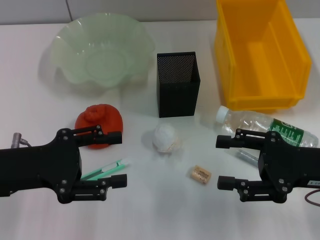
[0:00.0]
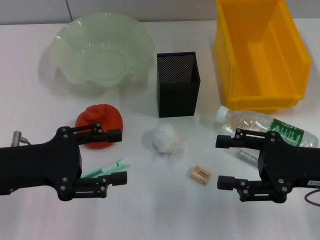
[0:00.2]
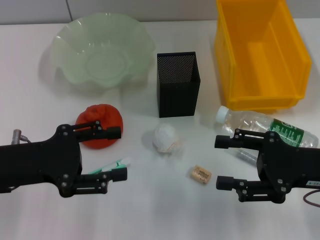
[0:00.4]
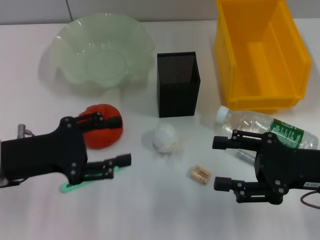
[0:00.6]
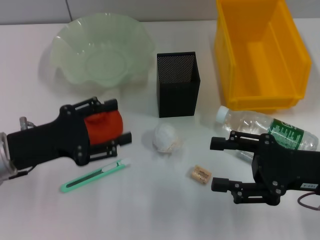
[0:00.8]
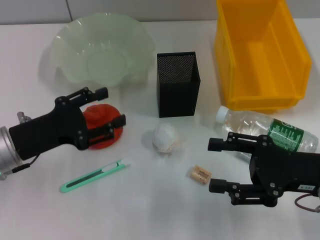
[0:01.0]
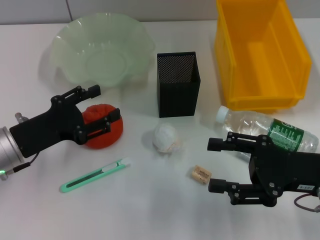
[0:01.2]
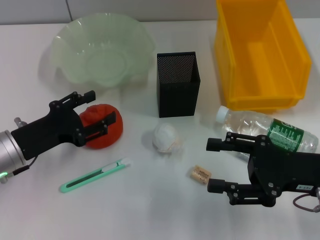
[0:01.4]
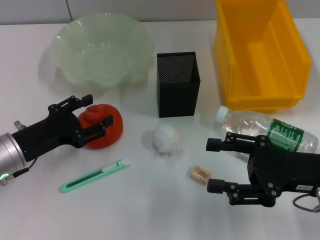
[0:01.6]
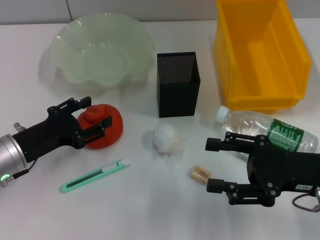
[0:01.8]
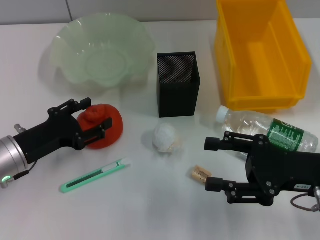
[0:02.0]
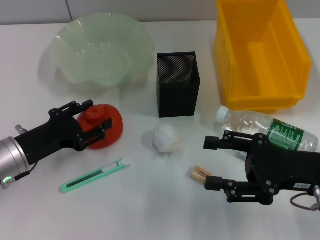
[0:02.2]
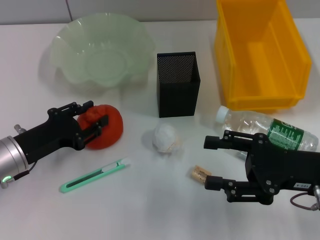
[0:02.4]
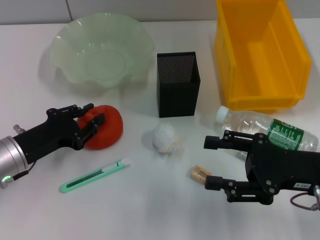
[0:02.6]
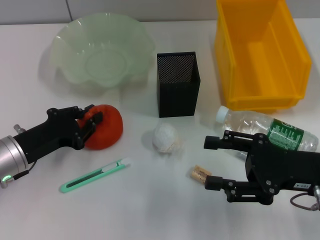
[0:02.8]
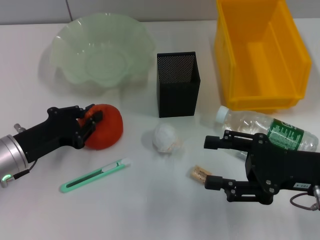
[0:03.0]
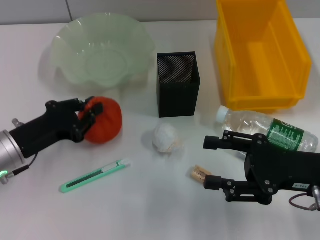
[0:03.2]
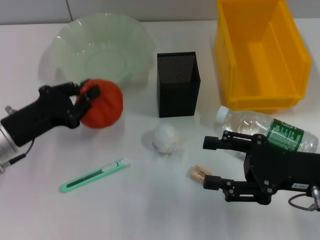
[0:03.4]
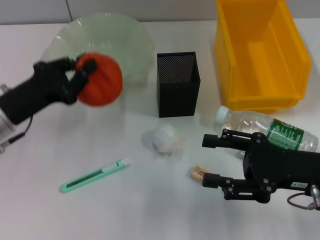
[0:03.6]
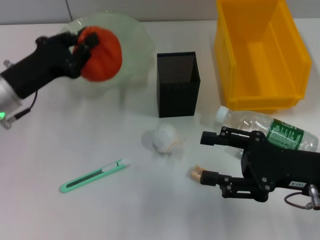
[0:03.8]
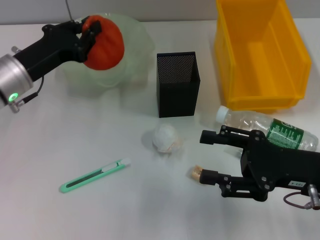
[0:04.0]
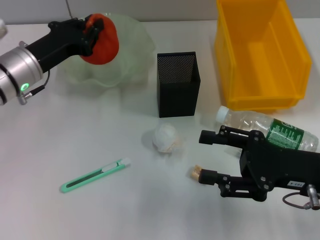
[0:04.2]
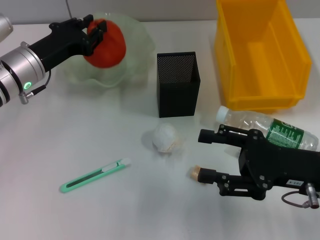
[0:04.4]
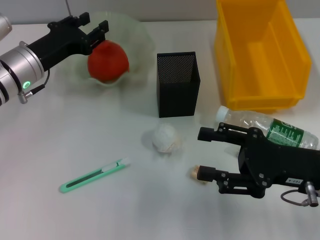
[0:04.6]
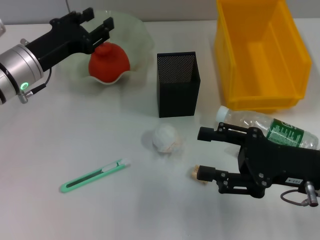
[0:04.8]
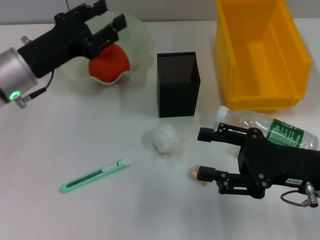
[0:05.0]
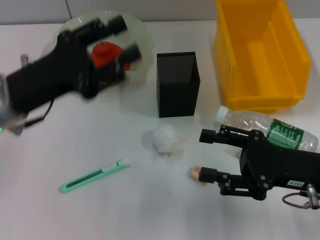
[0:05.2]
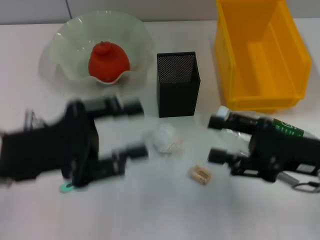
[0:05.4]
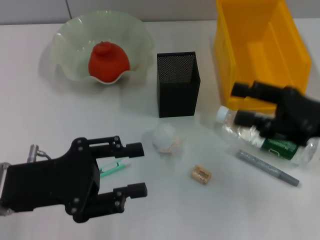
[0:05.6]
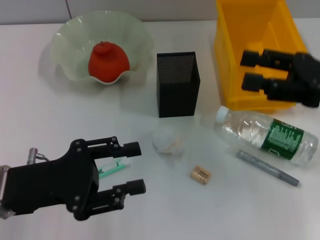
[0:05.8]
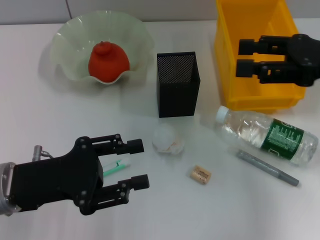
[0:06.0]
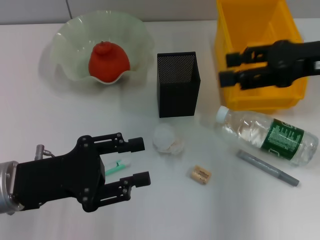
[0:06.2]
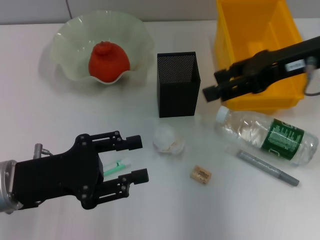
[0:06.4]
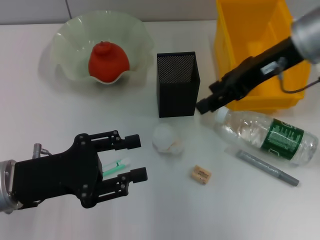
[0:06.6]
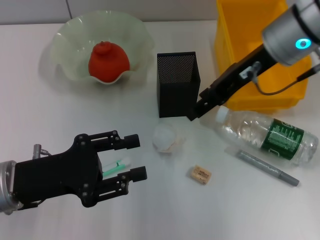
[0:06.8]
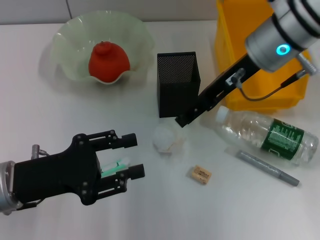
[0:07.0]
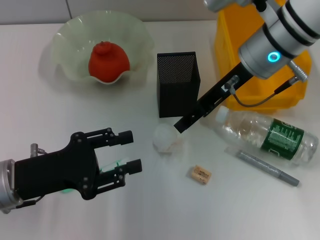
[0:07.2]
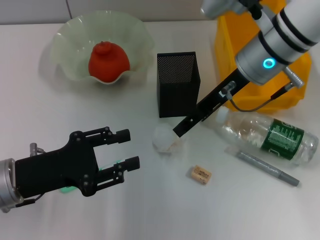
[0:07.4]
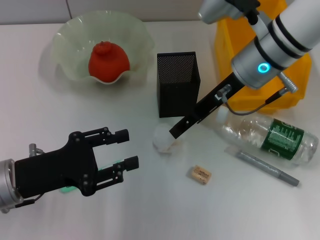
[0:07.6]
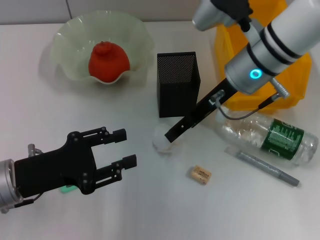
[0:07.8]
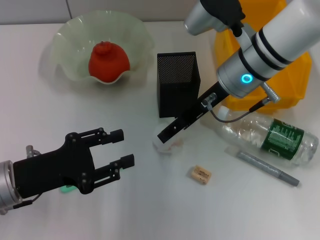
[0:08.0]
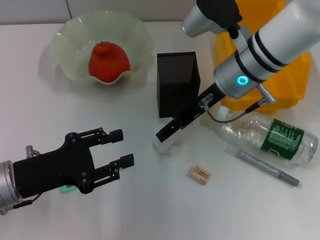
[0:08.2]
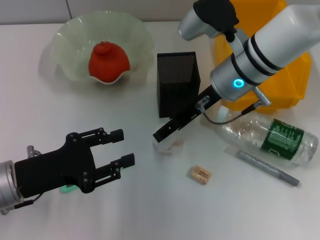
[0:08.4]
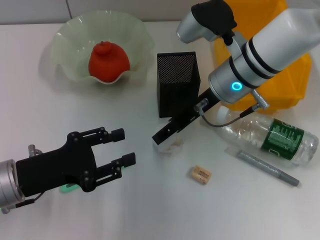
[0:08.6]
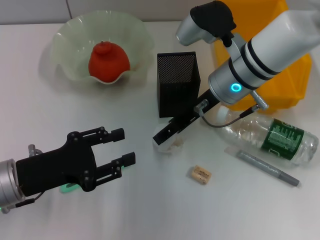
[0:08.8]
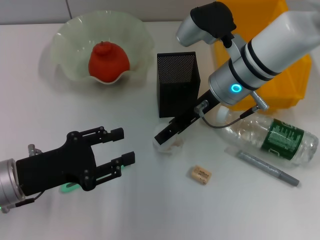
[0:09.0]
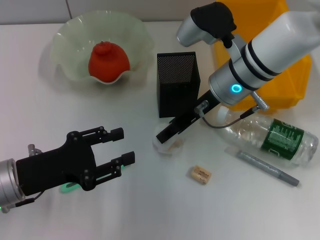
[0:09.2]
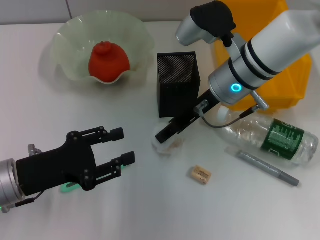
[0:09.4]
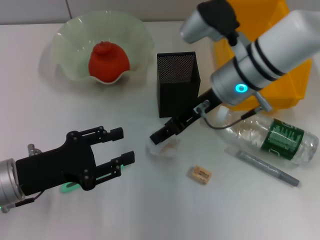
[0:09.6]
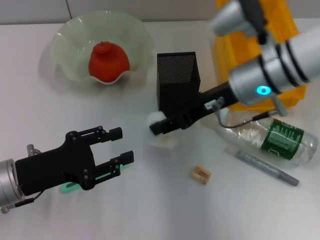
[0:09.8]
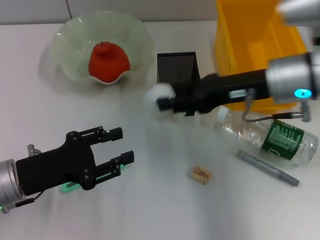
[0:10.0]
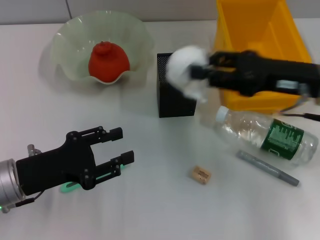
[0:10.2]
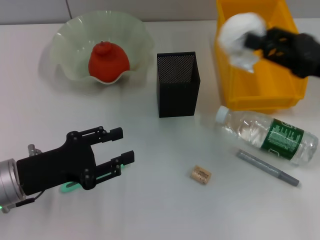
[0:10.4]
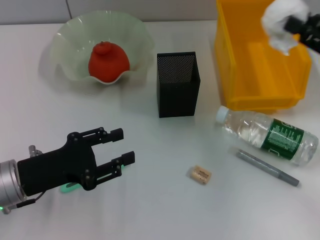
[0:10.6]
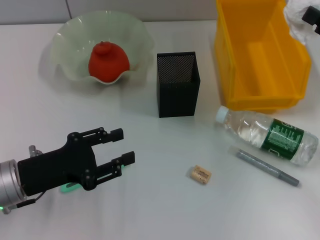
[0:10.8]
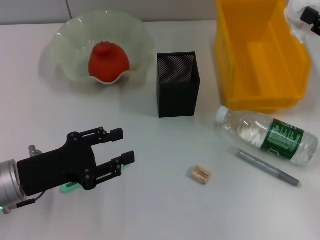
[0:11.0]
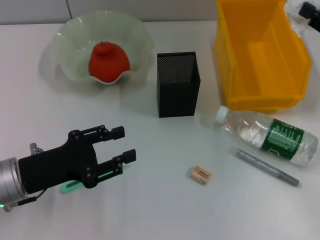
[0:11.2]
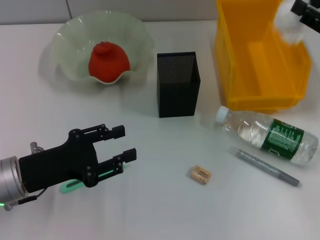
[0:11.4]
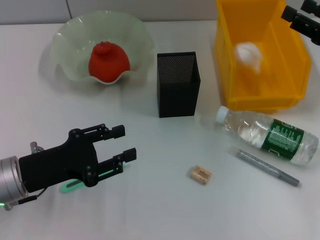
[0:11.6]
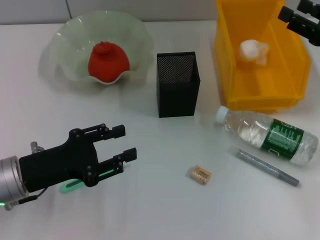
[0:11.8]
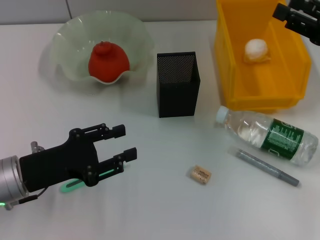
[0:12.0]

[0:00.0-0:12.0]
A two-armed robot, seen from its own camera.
Step, 0:00.0 to 0:03.0: Grab the orange with the left hand.
Step, 0:03.2 to 0:04.4: Place the orange into the fruit bowl with the left hand.
Step, 0:04.6 to 0:09.2: Grab the paper ball with the right hand.
Step, 0:09.6 to 0:11.6: Place the paper ball into the trash can with the right hand.
0:00.0 to 0:01.6: The left gripper moves downward, approximately 5 cm.
0:01.6 to 0:03.0: The left gripper closes its fingers.
0:03.0 to 0:04.4: The left gripper travels forward and upward by some 10 cm.
0:04.4 to 0:06.0: The left gripper moves backward, approximately 15 cm, and opens its fingers, while the right gripper travels upward and forward by roughly 15 cm.
0:06.0 to 0:07.6: The right gripper goes about 15 cm to the left and forward.
0:07.6 to 0:09.0: The grippers stay close to where they were, moving slightly.
0:09.0 to 0:10.4: The right gripper travels to the right and backward by approximately 20 cm.

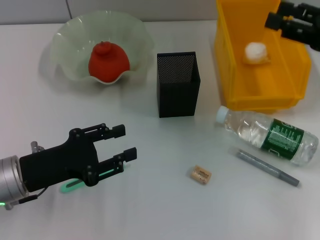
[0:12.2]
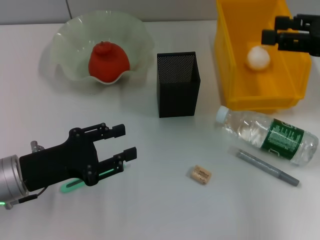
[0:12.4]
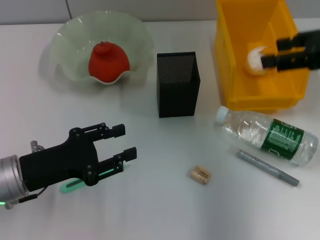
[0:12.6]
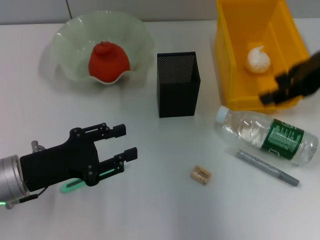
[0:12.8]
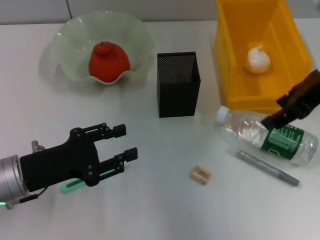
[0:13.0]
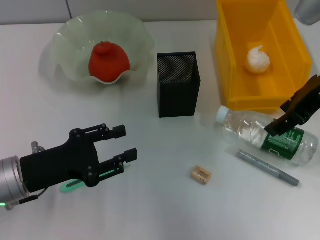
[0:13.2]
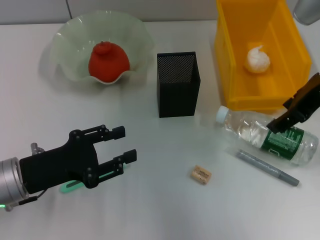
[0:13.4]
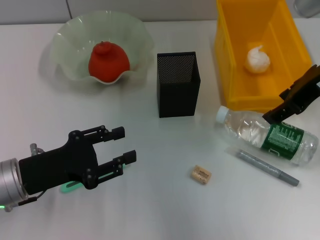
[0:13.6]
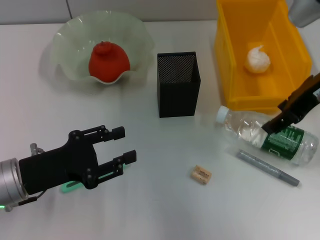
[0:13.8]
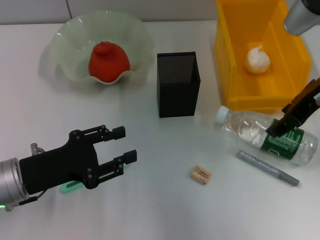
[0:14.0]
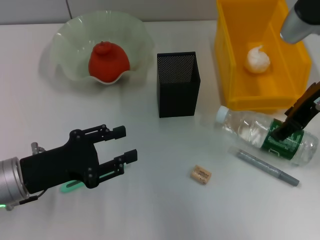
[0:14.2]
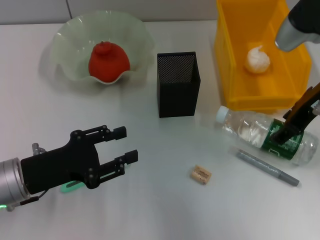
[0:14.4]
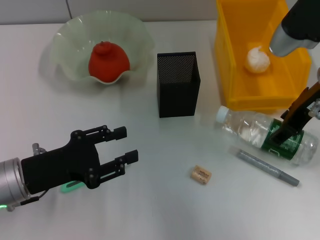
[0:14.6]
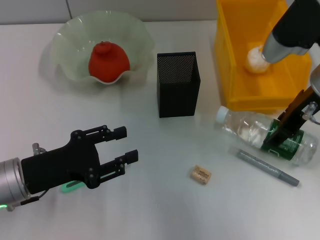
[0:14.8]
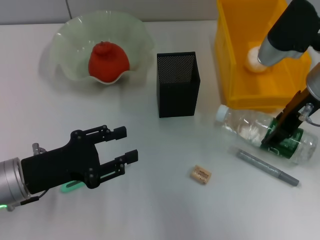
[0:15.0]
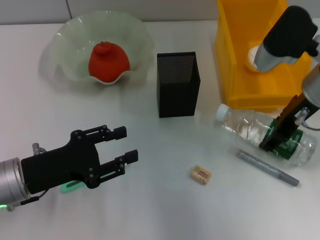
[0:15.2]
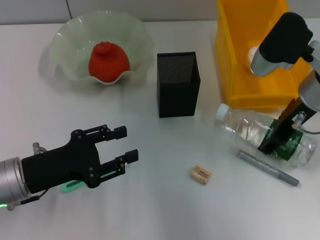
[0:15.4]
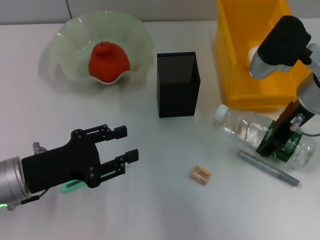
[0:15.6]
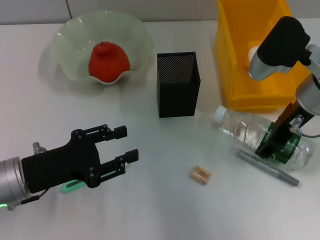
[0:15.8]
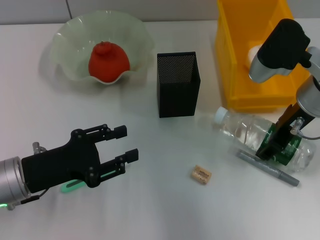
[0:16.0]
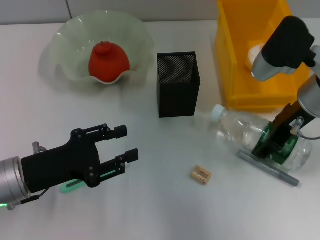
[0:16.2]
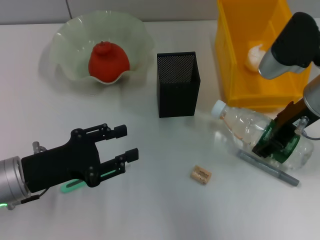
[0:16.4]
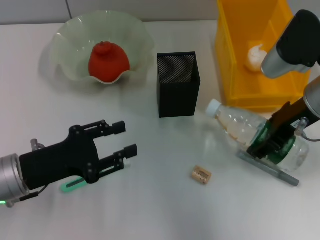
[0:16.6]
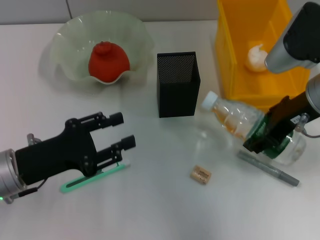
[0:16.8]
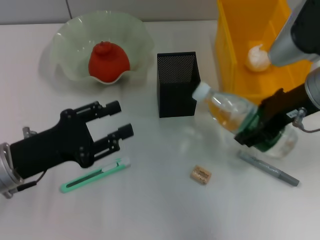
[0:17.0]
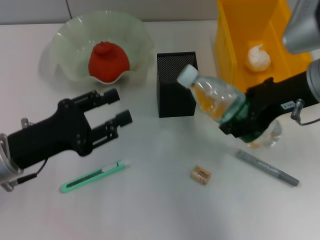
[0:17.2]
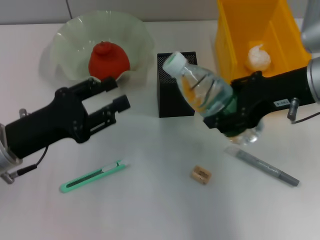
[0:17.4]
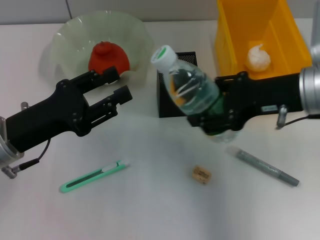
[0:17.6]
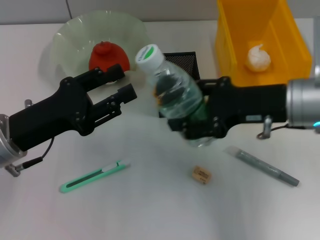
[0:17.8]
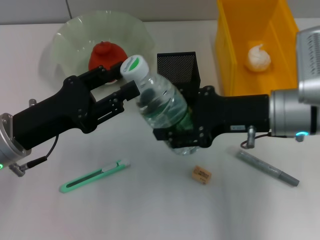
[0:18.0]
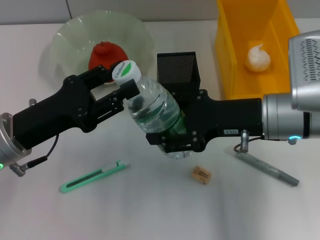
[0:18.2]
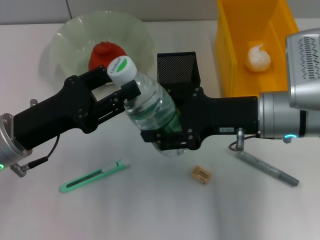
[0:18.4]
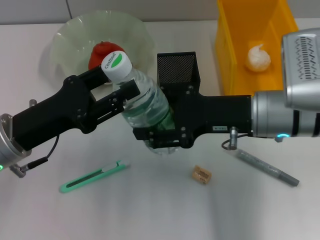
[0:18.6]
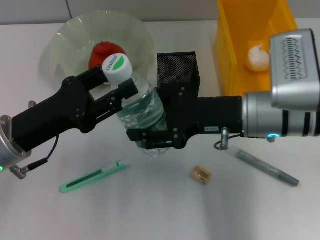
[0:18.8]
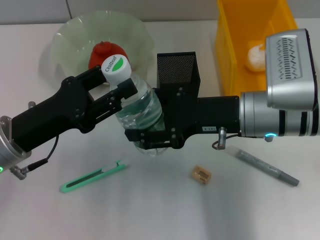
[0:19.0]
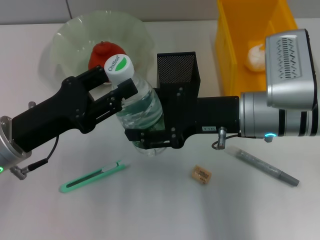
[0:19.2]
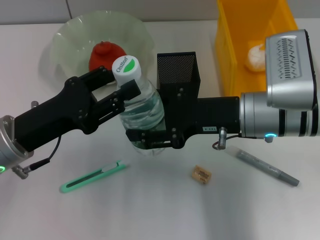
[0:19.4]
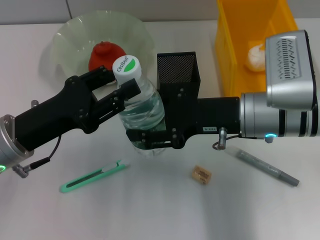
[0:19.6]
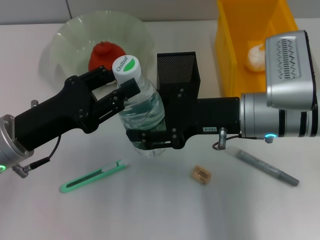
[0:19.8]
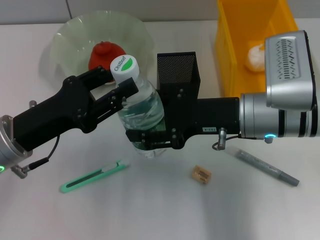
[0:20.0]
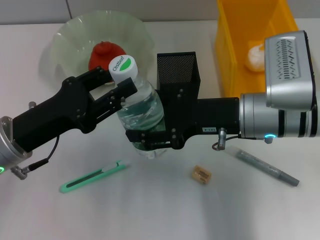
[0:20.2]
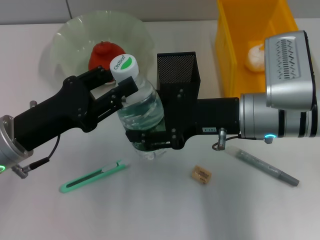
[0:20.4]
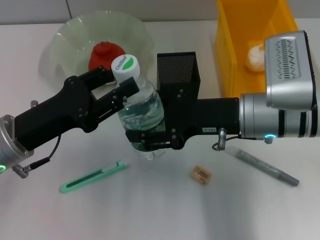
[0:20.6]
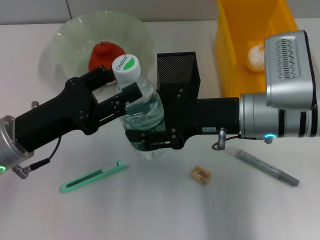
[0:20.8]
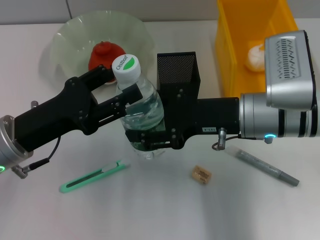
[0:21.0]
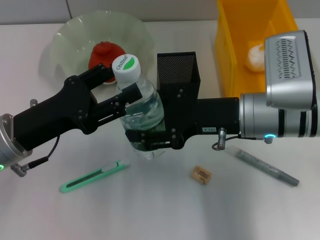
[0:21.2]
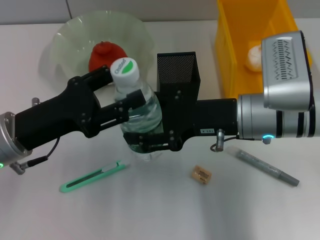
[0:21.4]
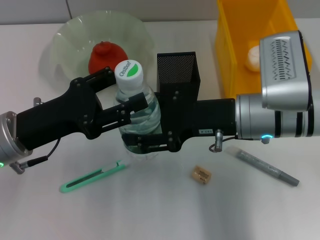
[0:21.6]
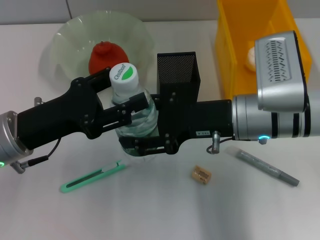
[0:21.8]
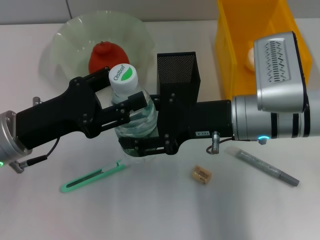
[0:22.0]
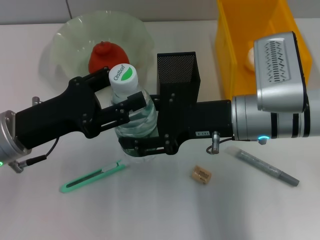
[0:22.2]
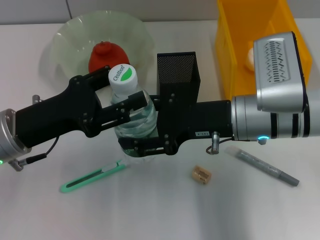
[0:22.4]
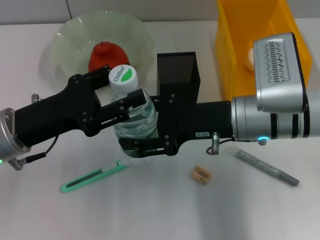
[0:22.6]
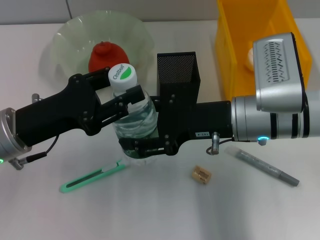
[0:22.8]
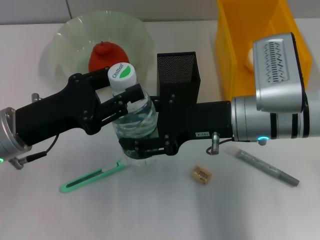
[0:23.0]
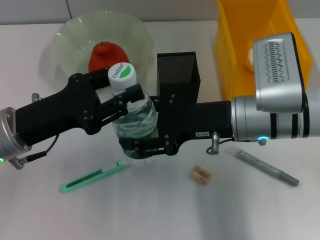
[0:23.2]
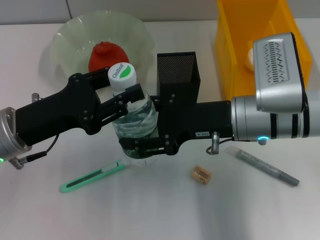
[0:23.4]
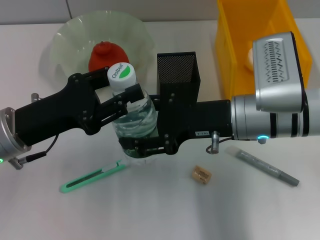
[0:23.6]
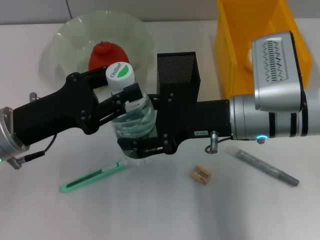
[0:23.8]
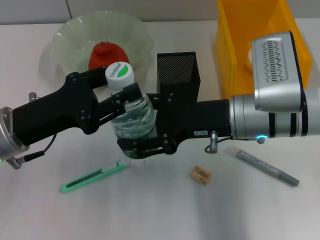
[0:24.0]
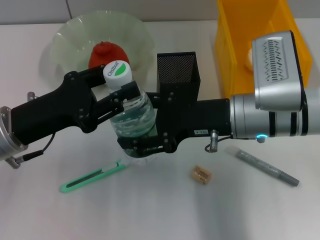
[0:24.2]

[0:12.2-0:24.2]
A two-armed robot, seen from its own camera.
Step, 0:12.2 to 0:15.8: Grab the water bottle with the right hand.
0:12.2 to 0:13.8: The right gripper shifts approximately 10 cm to the left.
0:13.8 to 0:15.2: The right gripper moves downward, some 5 cm.
0:15.2 to 0:16.6: The grippers make only small movements.
0:16.6 to 0:18.2: The right gripper changes place by about 5 cm.
0:18.2 to 0:19.8: There are only small adjustments of the grippers.
0:19.8 to 0:21.2: The left gripper opens.
0:21.2 to 0:22.6: The grippers move only a little.
0:22.6 to 0:24.2: The left gripper closes up.
